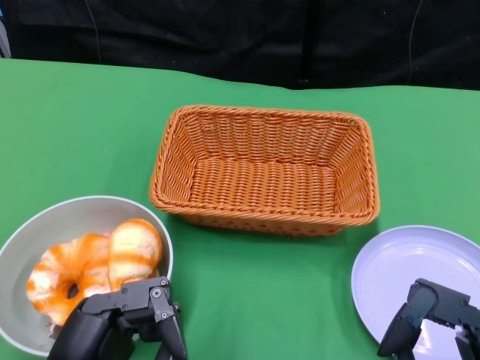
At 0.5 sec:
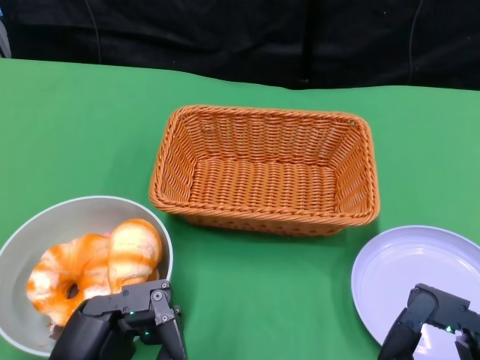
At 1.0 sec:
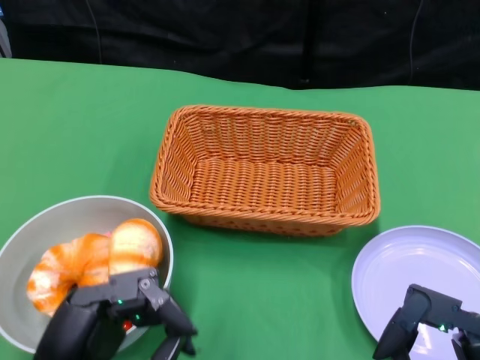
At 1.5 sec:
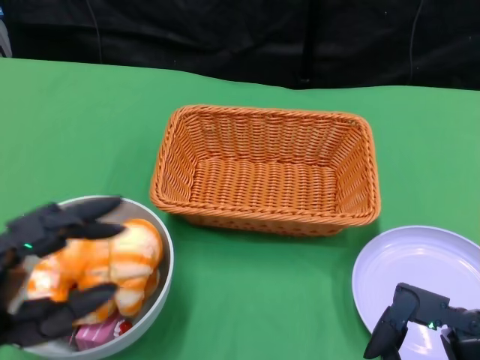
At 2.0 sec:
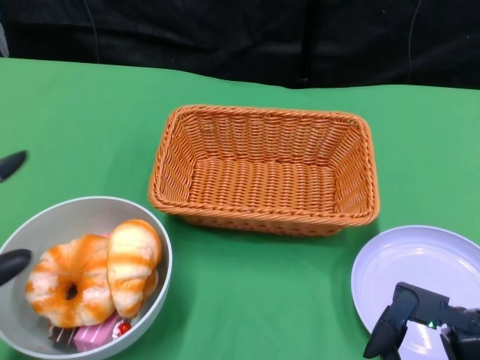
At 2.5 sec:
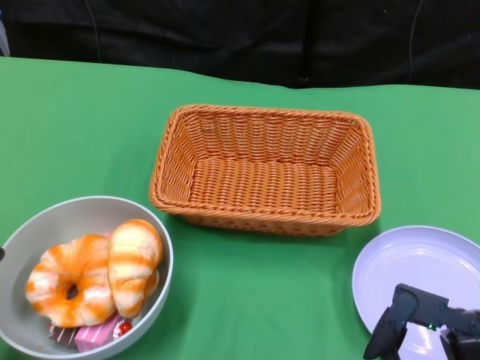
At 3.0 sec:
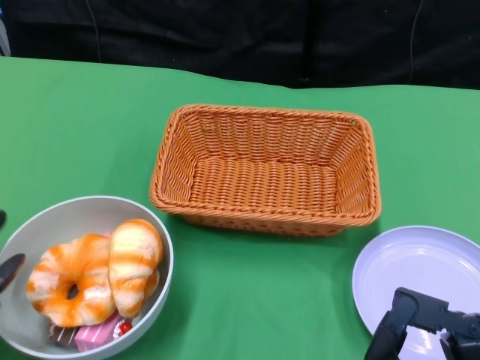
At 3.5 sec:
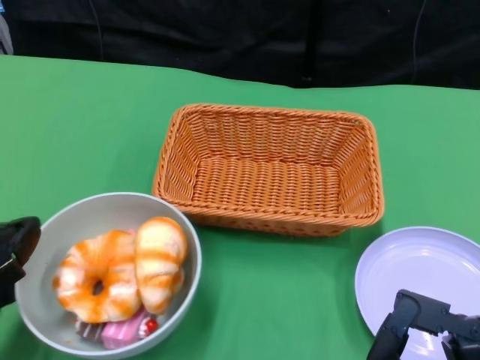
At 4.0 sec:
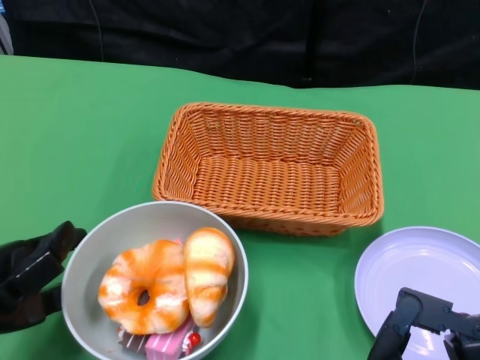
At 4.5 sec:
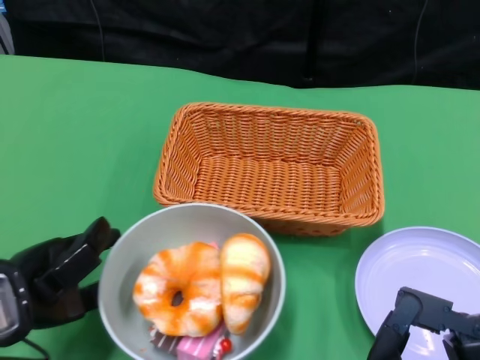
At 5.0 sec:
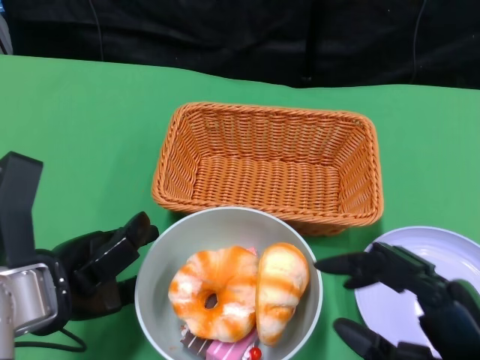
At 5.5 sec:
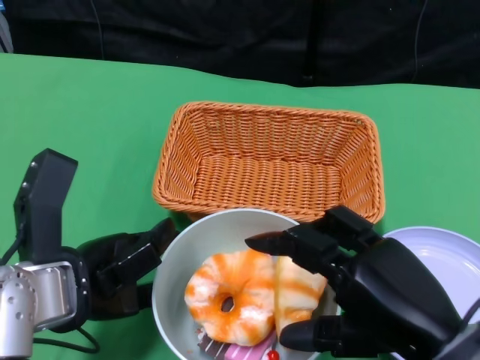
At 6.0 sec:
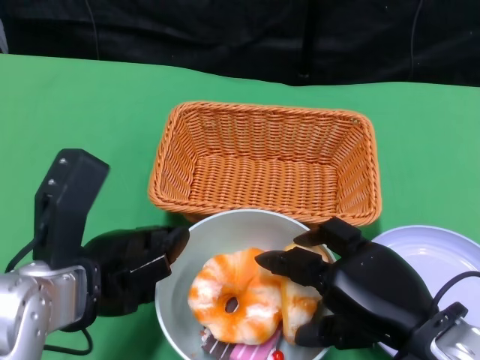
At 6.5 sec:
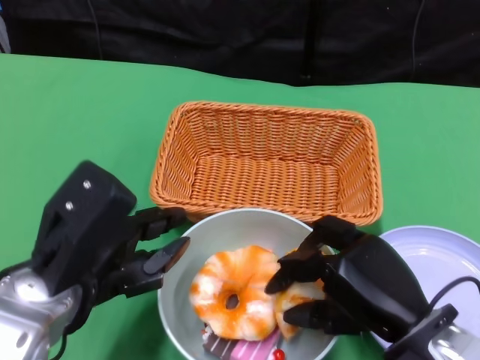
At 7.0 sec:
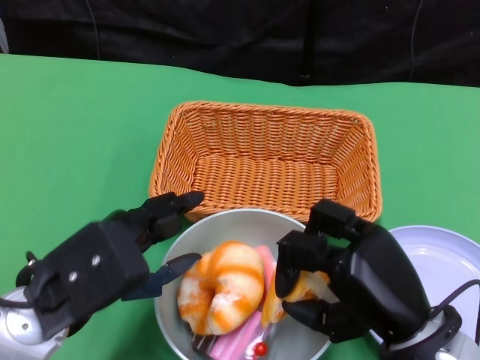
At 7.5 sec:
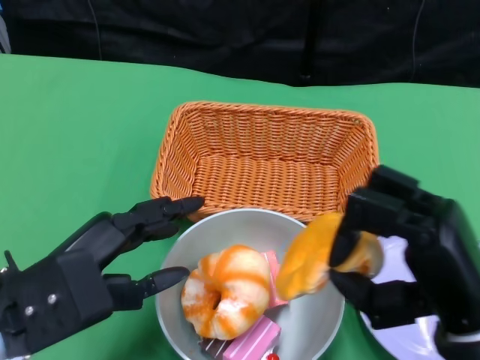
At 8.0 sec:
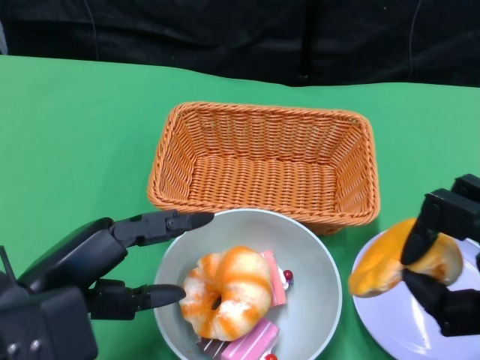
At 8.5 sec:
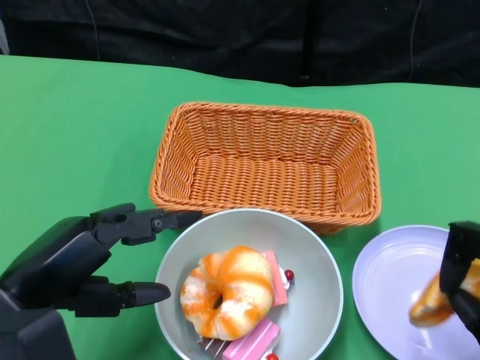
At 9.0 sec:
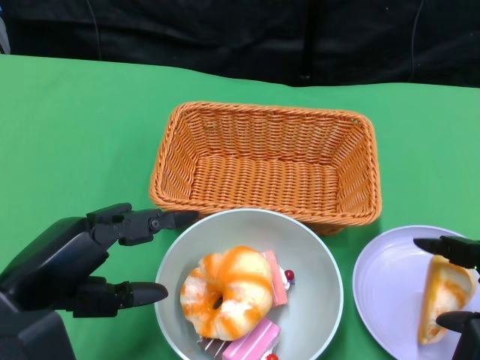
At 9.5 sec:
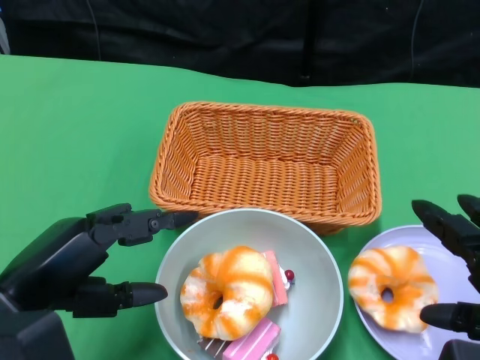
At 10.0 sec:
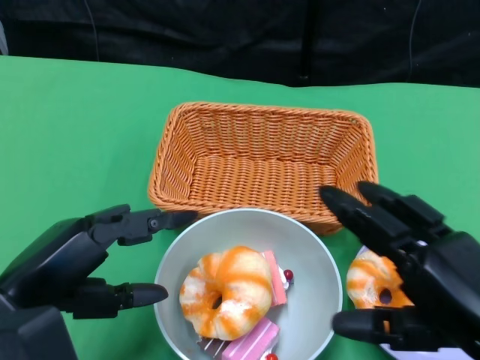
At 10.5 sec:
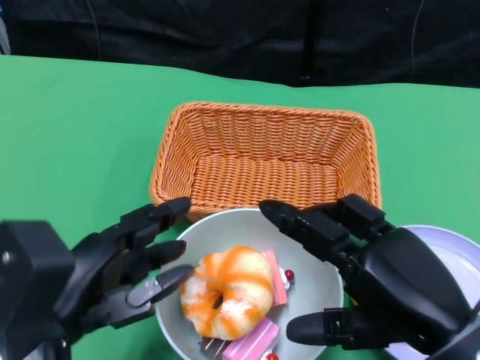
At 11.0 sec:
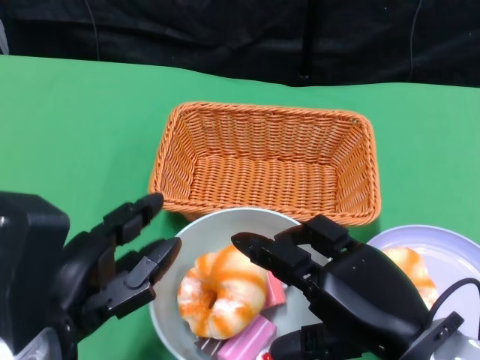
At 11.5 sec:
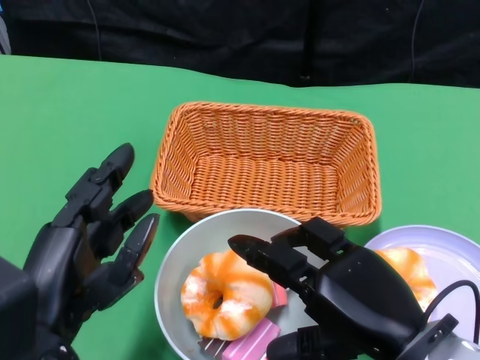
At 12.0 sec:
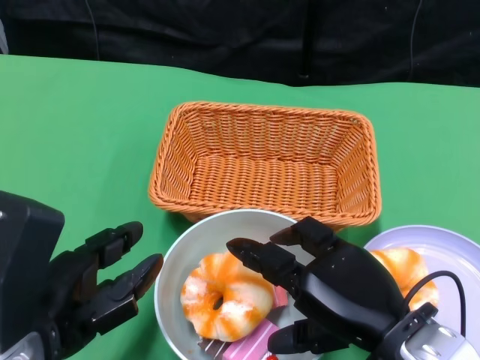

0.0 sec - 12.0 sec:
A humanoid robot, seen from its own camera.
Step, 0.0 sec - 4.5 sec: Push the bowl to the center of the table using the left gripper.
Step, 5.5 sec - 9.5 sec: Pick up the bread with the right gripper and place it on the plate.
2.0 sec - 4.0 sec: The left hand moves forward, some 5 cm.
4.0 sec - 6.0 sec: The left hand shifts roughly 10 cm to the right; the right hand heads forward, covering approximately 10 cm.
6.0 sec - 8.0 sec: The left hand moves roughly 5 cm. Meanwhile the right hand travels to the right by some 5 cm.
10.0 sec - 12.0 sec: The right hand is displaced to the left by about 5 cm.

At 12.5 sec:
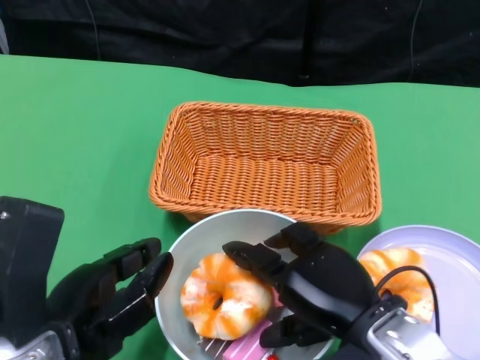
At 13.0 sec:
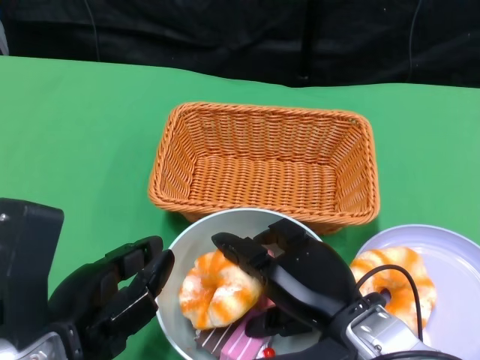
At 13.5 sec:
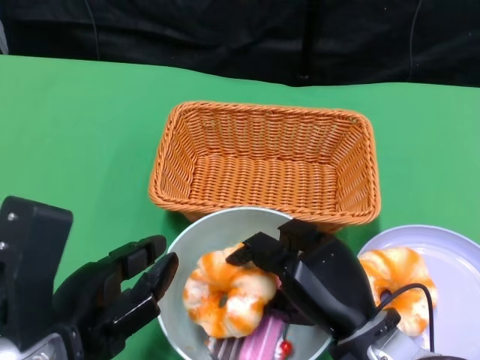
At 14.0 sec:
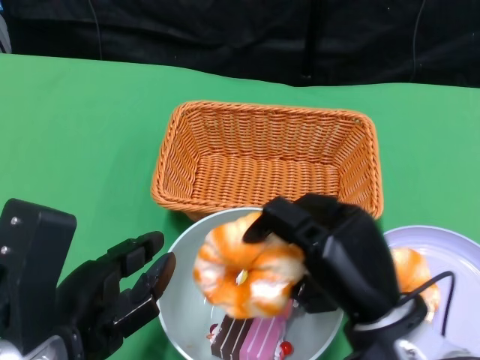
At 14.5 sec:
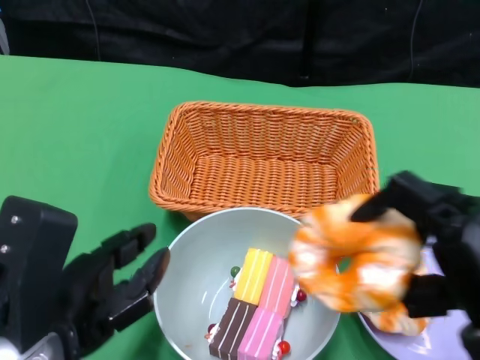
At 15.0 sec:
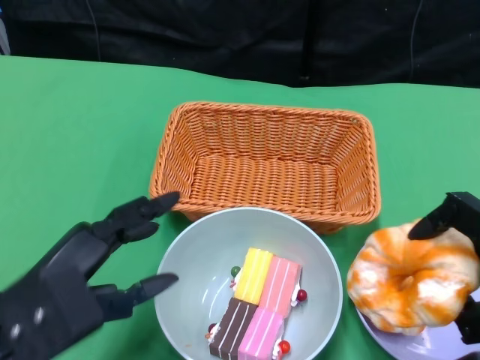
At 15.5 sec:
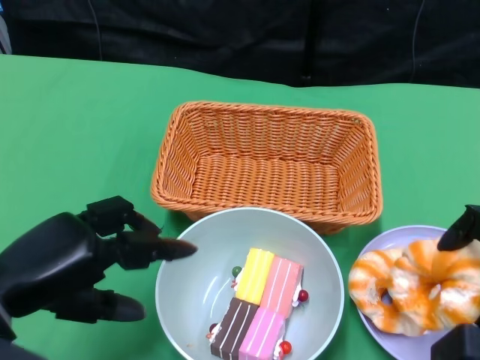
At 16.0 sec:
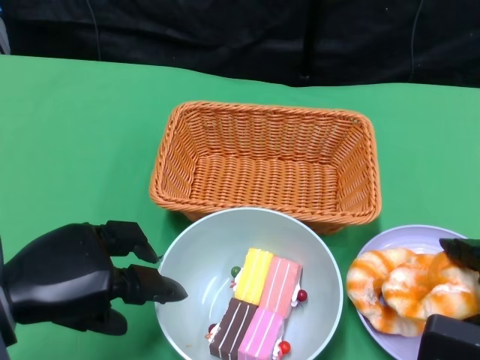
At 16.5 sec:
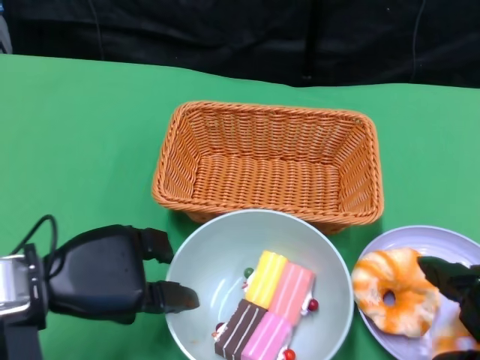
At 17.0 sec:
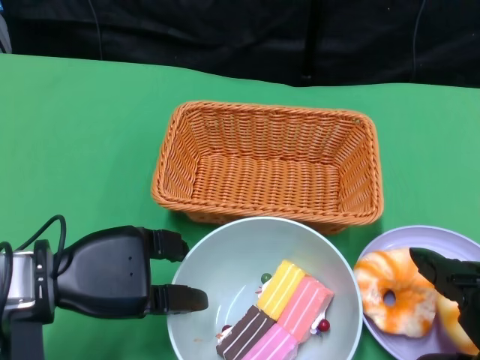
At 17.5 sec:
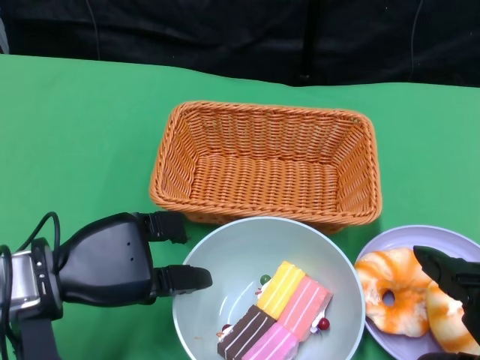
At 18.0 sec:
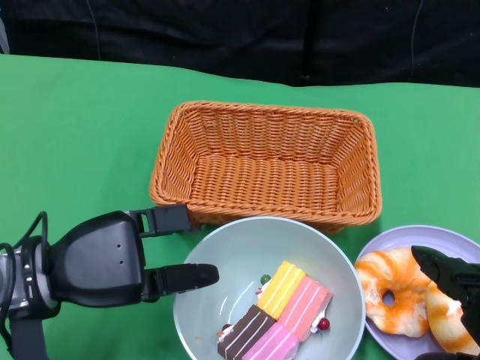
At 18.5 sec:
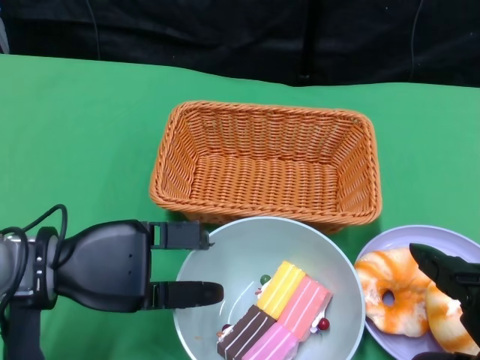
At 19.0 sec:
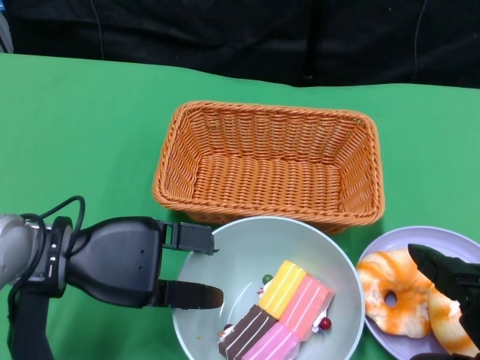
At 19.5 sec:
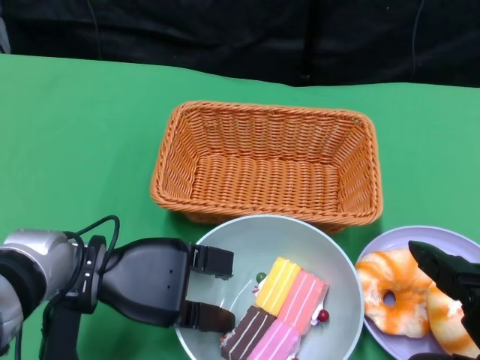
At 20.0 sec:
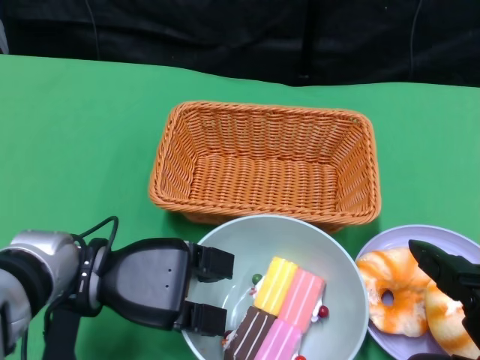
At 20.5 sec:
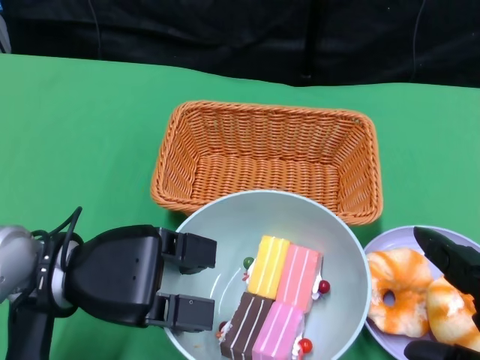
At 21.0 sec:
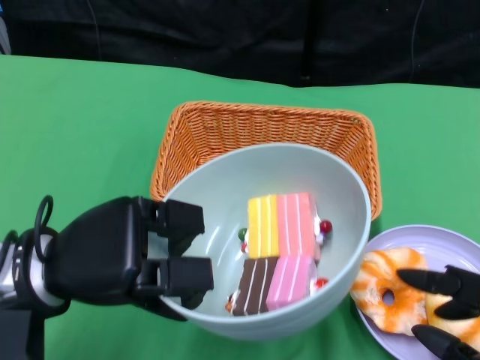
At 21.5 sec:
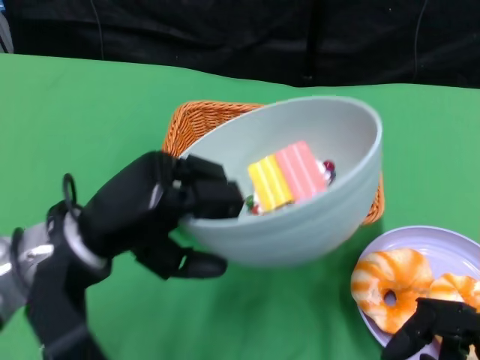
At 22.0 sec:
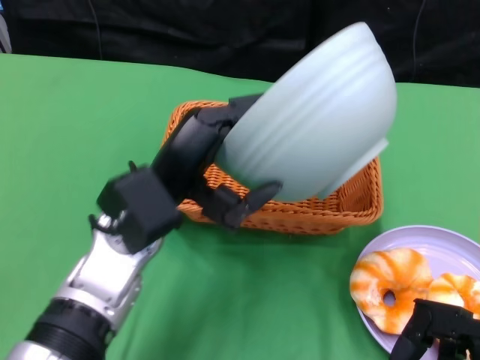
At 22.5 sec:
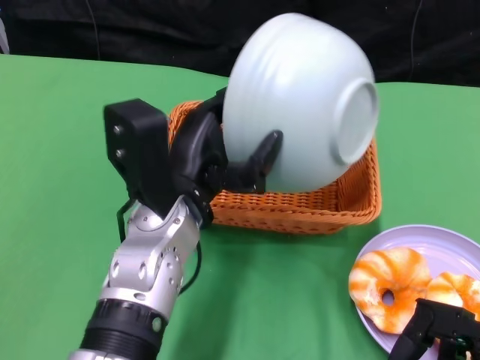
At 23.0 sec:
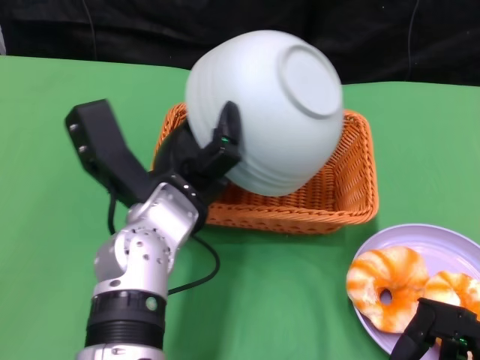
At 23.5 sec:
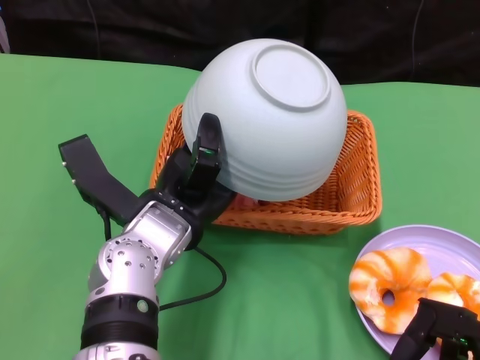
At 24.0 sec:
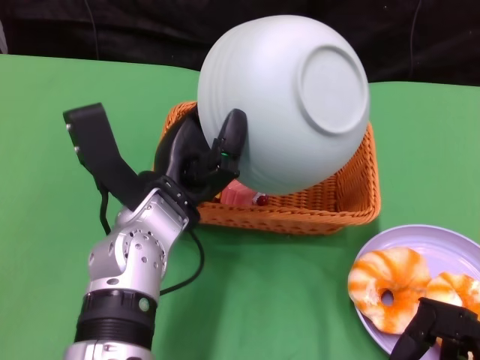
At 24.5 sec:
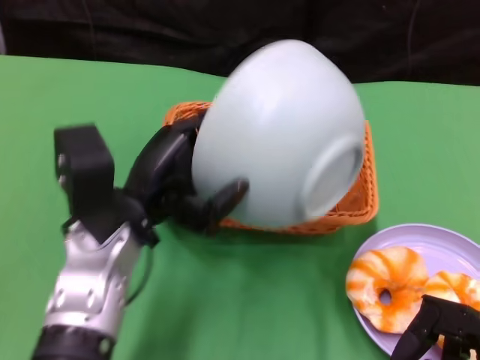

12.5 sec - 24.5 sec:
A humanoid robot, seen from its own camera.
Step, 12.5 sec - 17.0 sec: Pick up the bread with the right gripper and place it on the plate.
Step, 17.5 sec - 20.0 sec: Grasp the bowl with the left gripper.
Step, 20.5 sec - 23.0 sec: Pour the cake into the basket with the left gripper.
12.5 sec - 14.5 sec: The right hand heads to the right, covering approximately 10 cm.
14.5 sec - 16.5 sec: The right hand goes approximately 5 cm backward; the left hand shifts approximately 5 cm forward.
20.5 sec - 22.5 sec: The left hand heads to the right, covering some 10 cm. Meanwhile the right hand is displaced downward by about 5 cm.
22.5 sec - 24.5 sec: The left hand is displaced to the left by approximately 5 cm.

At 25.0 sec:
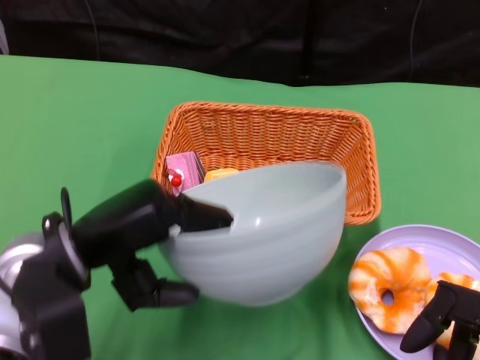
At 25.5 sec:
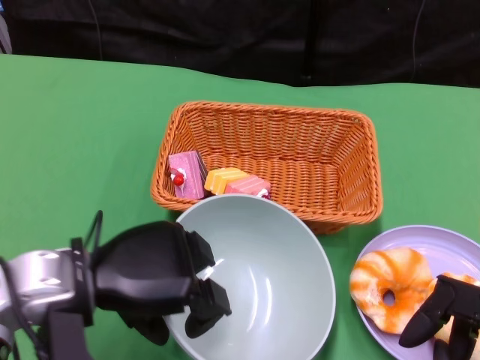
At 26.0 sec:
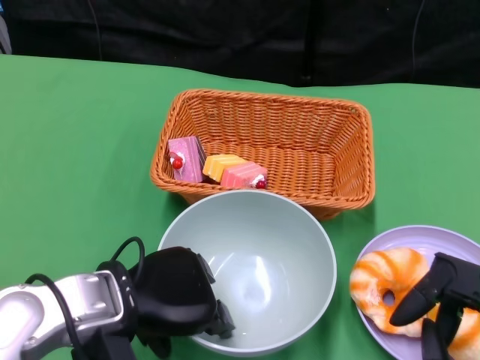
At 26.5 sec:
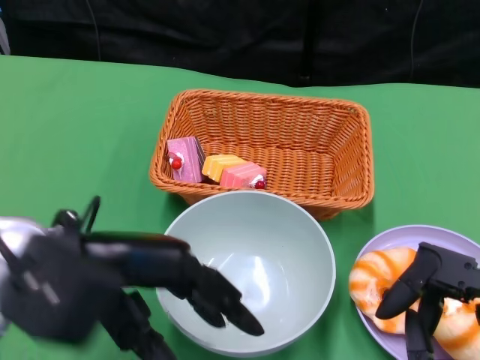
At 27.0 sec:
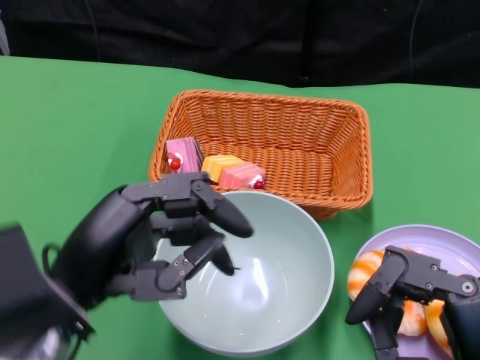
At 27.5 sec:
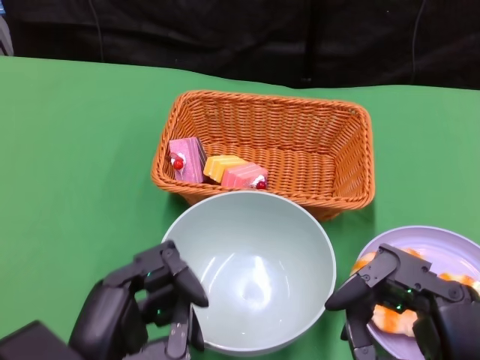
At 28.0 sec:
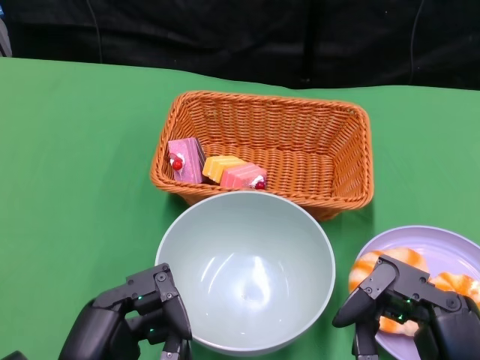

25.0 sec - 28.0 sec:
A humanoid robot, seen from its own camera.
Step, 25.0 sec - 26.5 sec: Place the bowl on the table with the left gripper.
25.0 sec - 26.5 sec: The left hand moves upward, about 5 cm.
26.5 sec - 28.0 sec: The left hand shifts approximately 15 cm backward and downward.
